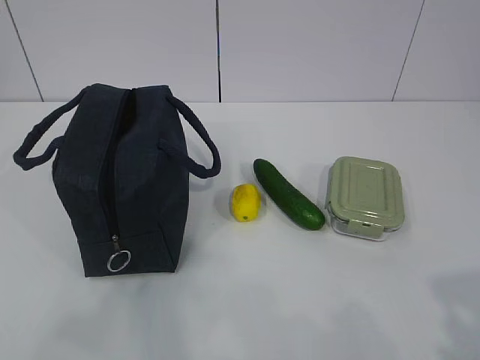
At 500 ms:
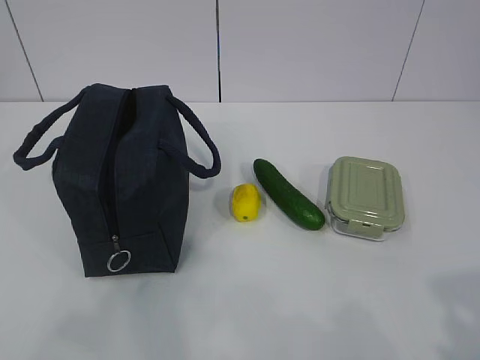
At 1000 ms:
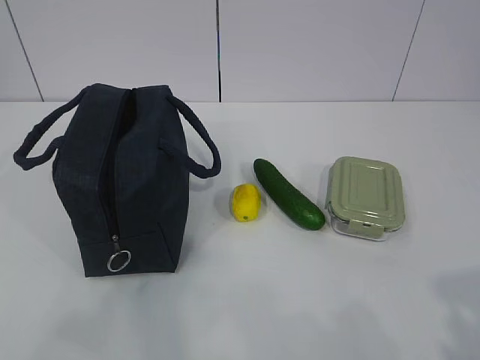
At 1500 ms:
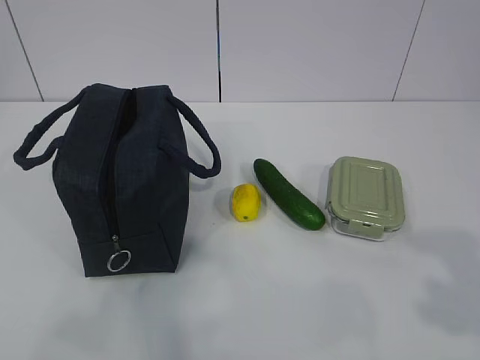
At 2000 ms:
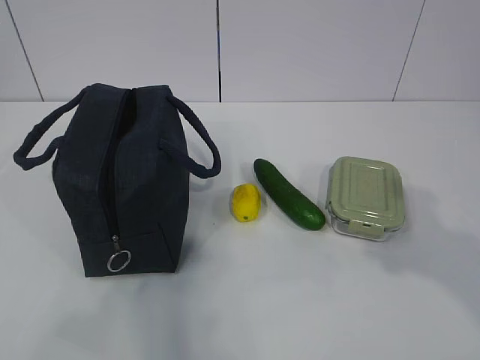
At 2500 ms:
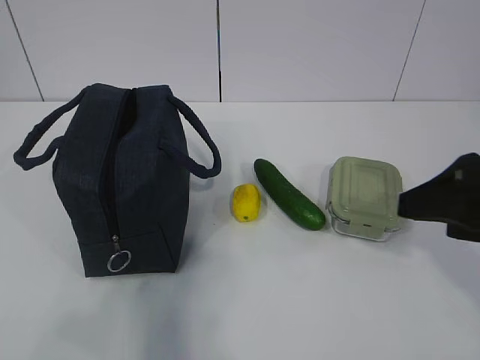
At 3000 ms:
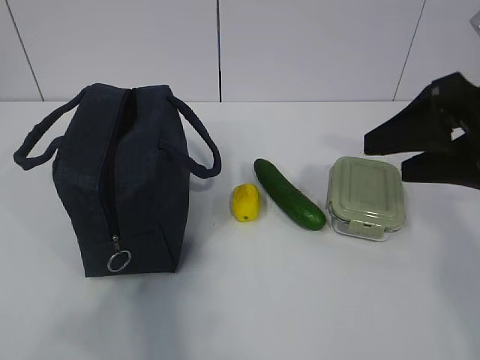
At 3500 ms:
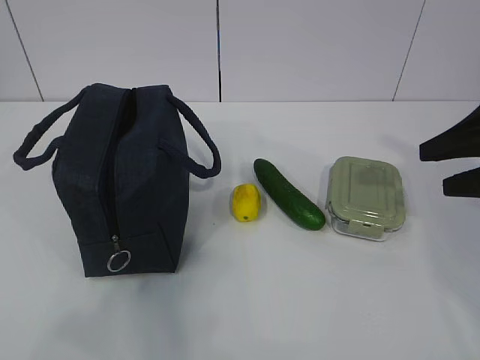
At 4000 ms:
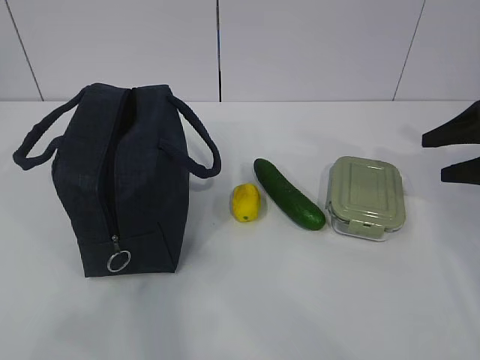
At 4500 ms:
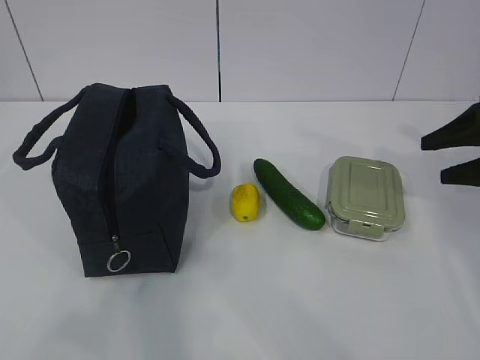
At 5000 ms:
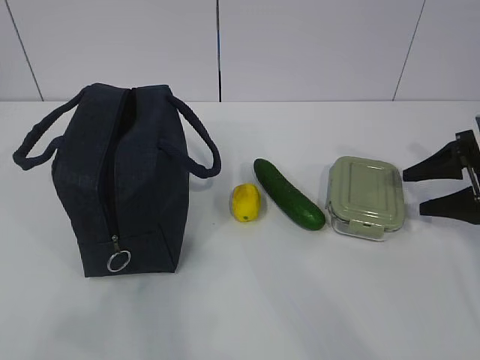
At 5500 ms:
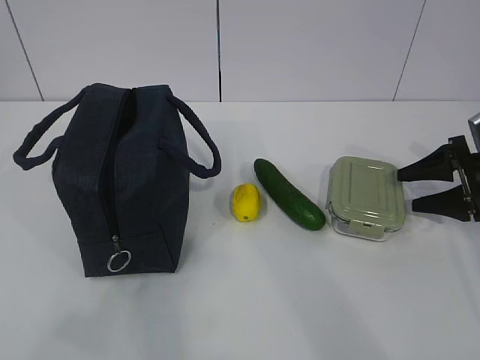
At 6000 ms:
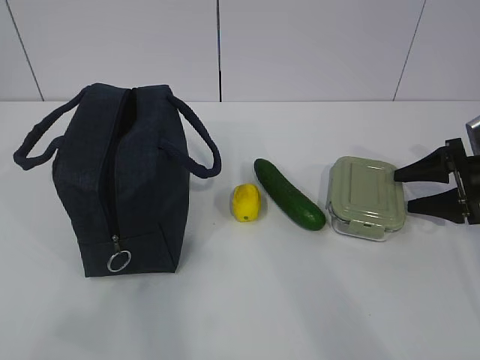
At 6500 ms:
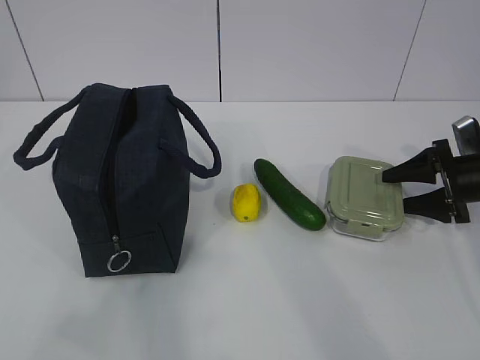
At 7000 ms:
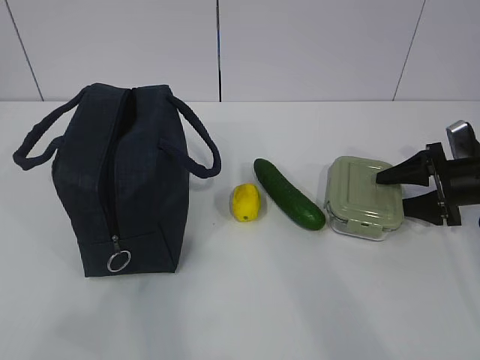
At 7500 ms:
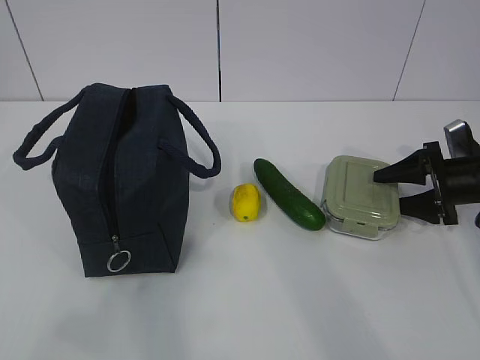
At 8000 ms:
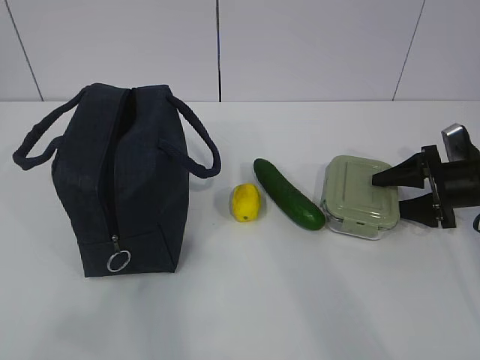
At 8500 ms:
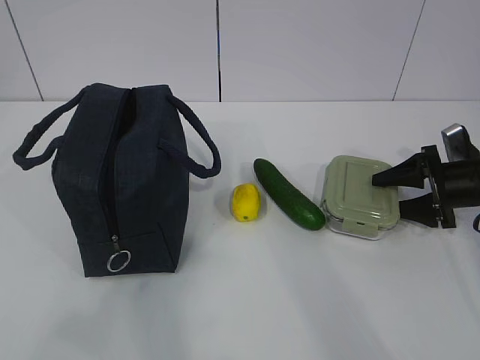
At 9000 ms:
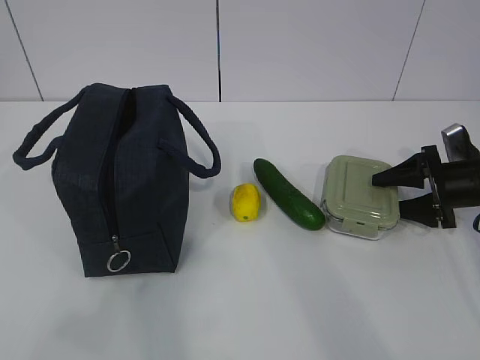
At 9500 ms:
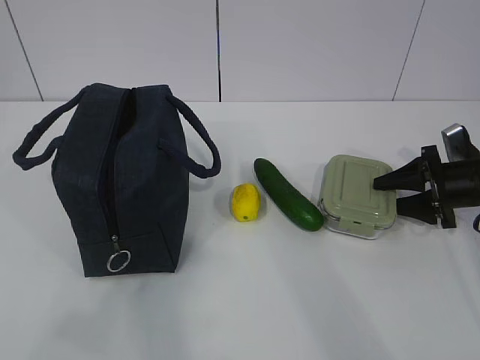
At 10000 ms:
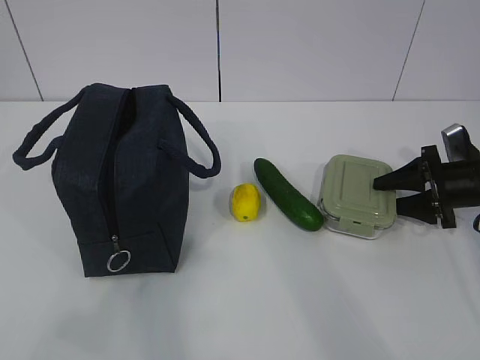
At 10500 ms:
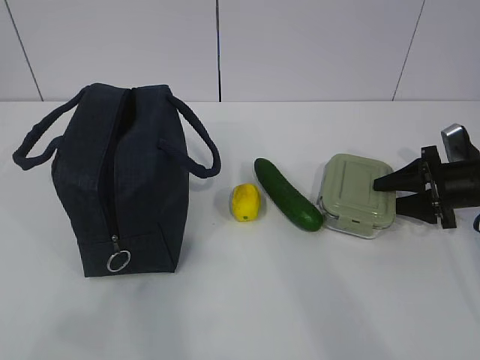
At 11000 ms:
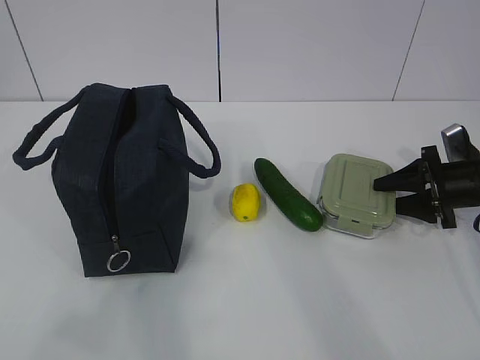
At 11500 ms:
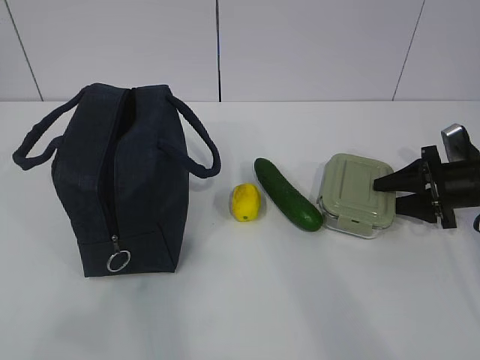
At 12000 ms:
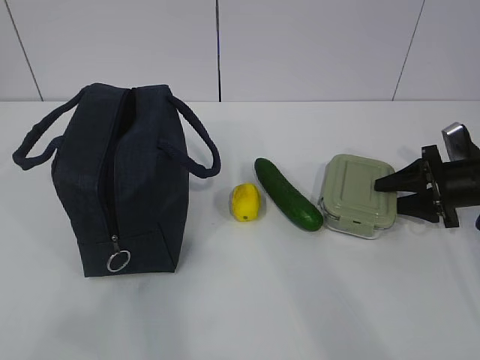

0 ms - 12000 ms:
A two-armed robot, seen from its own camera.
Step, 0 ms - 7500 ms: Grab the lunch box with your right hand.
2000 ms - 4000 ms: The right gripper shifts approximately 25 cm forward and to the right.
4000 ms - 6000 ms: The right gripper goes some 10 cm downward.
6000 ms - 8000 ms: The grippers stay close to where they were, moving slightly.
8000 ms - 12000 ms: The two grippers keep their place.

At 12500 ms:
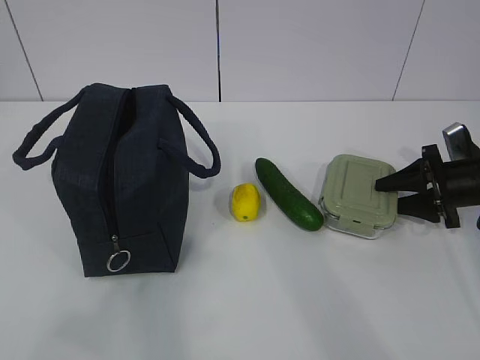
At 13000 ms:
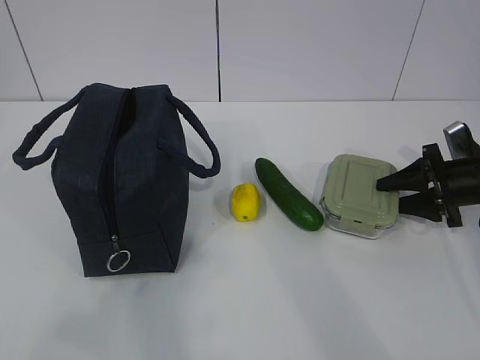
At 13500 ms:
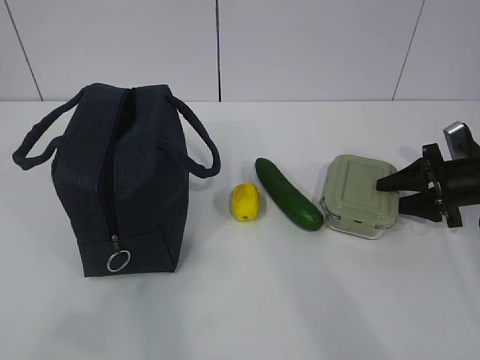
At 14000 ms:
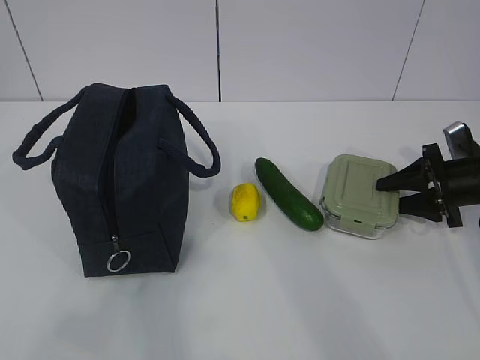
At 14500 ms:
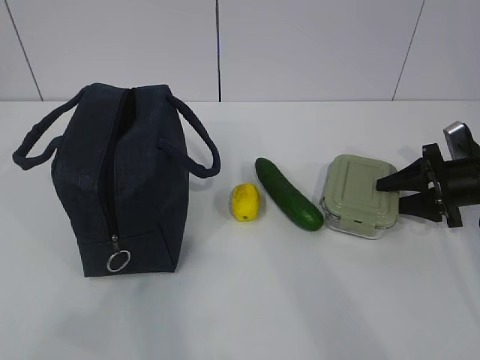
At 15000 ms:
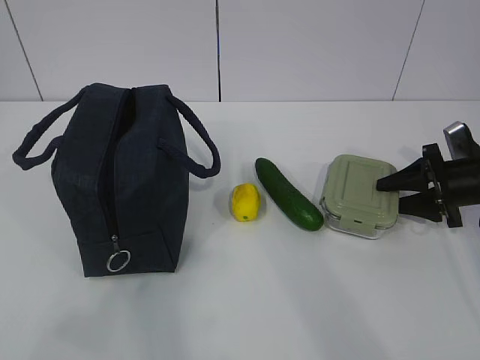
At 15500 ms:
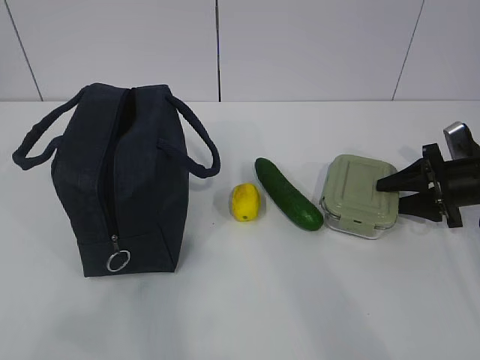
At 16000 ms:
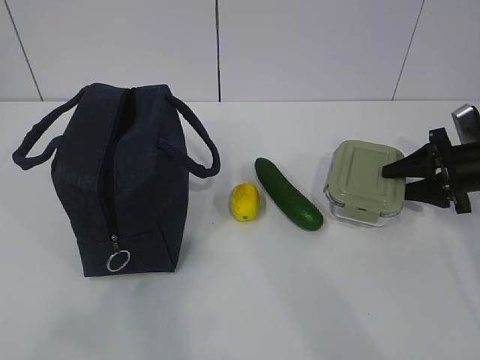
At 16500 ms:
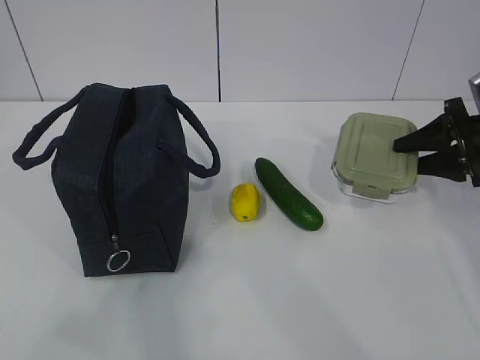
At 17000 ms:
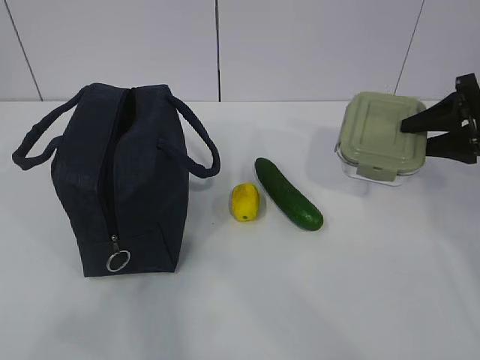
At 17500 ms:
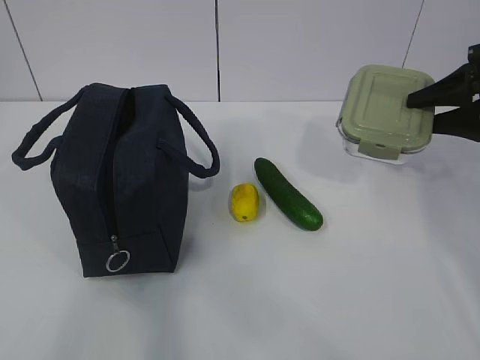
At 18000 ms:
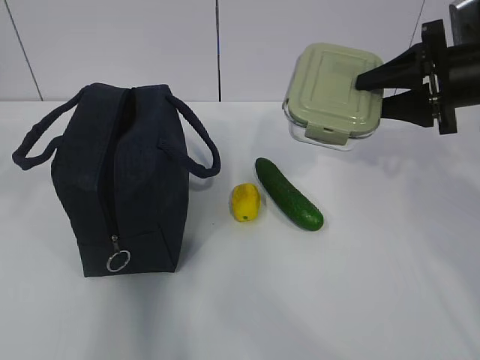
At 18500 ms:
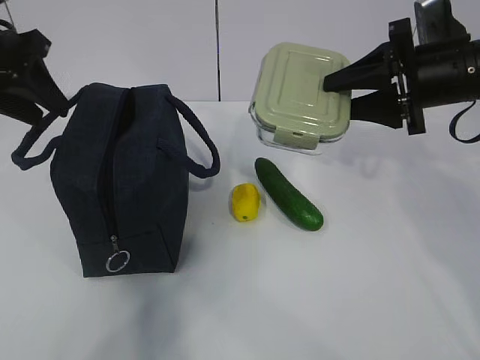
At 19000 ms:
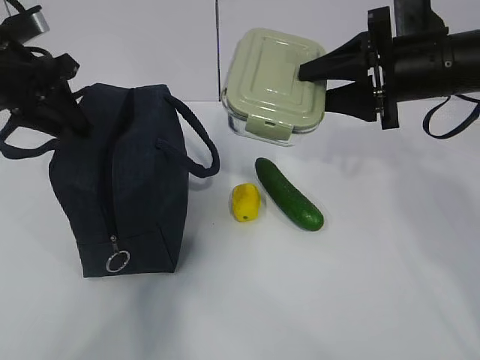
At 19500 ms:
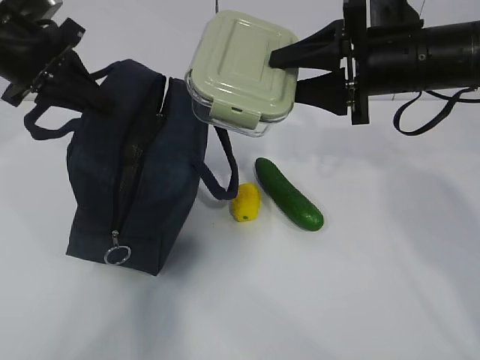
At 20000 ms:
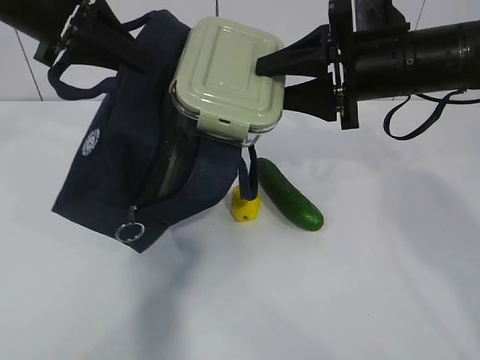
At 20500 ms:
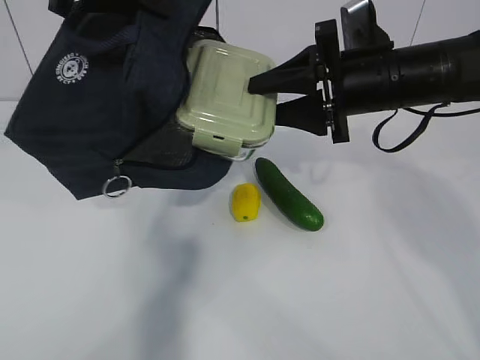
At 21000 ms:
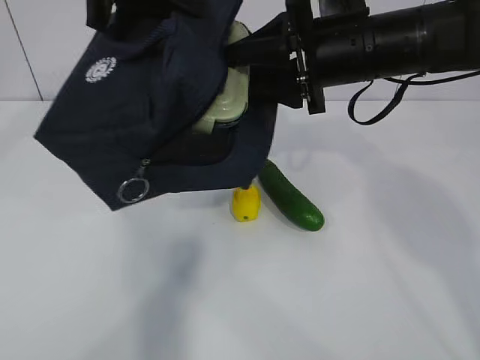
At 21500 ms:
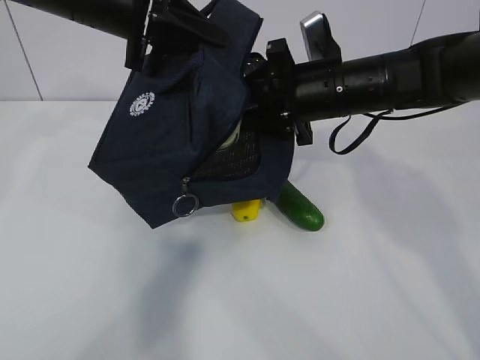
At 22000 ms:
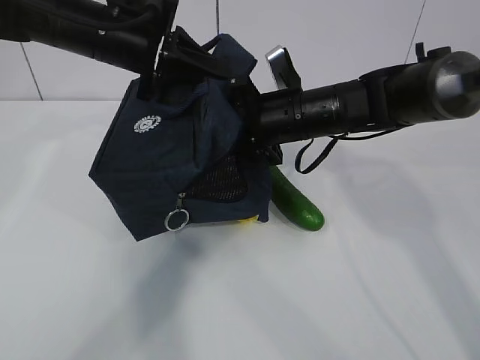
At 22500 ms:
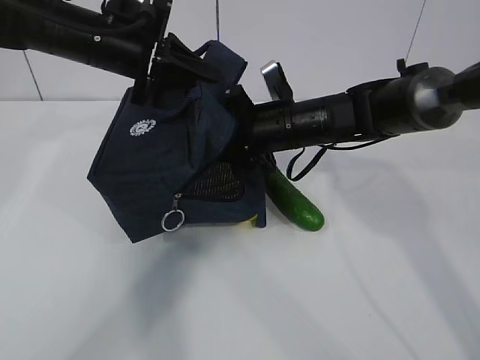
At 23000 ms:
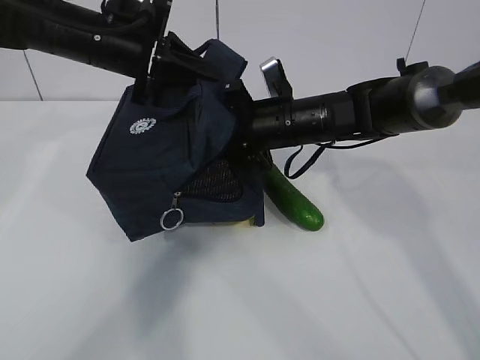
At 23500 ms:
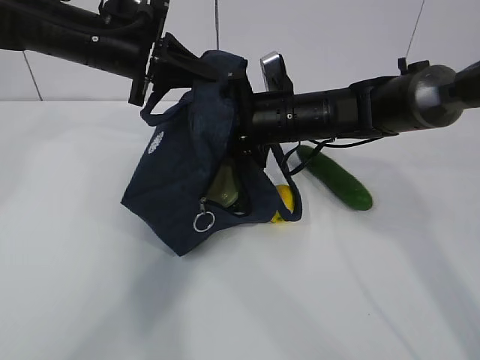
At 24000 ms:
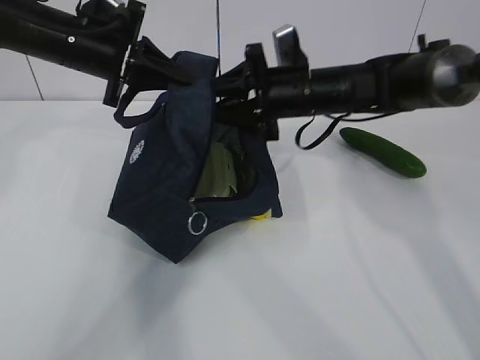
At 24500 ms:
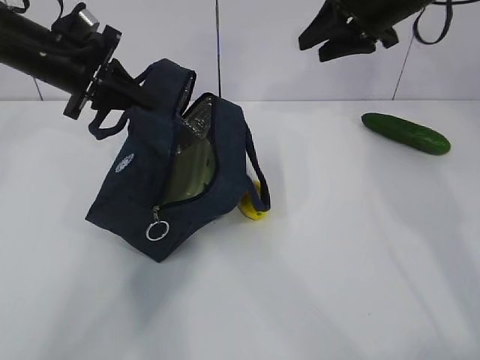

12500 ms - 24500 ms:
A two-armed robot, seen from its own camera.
Step, 17000 ms - 19000 ms: Place it into the bag with your right hand.
Step, 19500 ms - 23500 ms: Grab the cucumber with your right hand.
12500 ms - 14500 ms: Both grippers stay about where they are.
14500 ms - 16500 ms: The right gripper shifts approximately 10 cm upward.
16500 ms - 18500 ms: The right gripper is displaced to the left and upward by roughly 15 cm. Meanwhile the left gripper travels forward by approximately 35 cm.
18500 ms - 20500 ms: The right gripper goes roughly 10 cm to the left, while the left gripper travels to the right and upward by about 10 cm, and closes.
20500 ms - 22500 ms: The left gripper moves downward and forward, approximately 15 cm; the right gripper travels downward, to the left and forward by approximately 15 cm.
22500 ms - 24500 ms: The right gripper goes approximately 20 cm upward and to the right; the left gripper is displaced to the left by some 5 cm.

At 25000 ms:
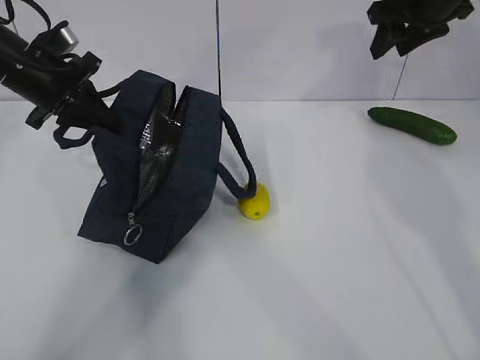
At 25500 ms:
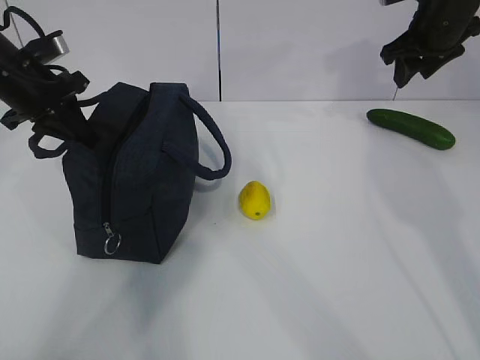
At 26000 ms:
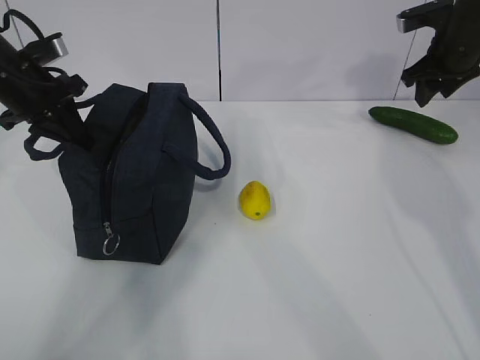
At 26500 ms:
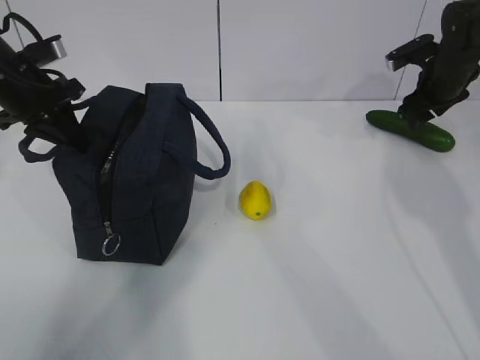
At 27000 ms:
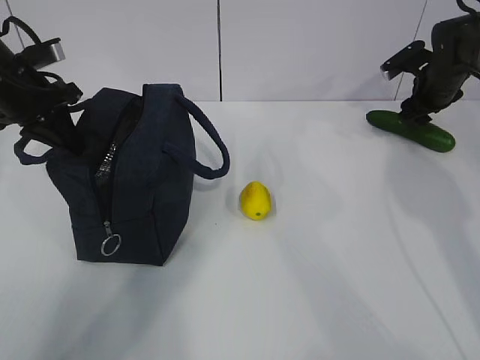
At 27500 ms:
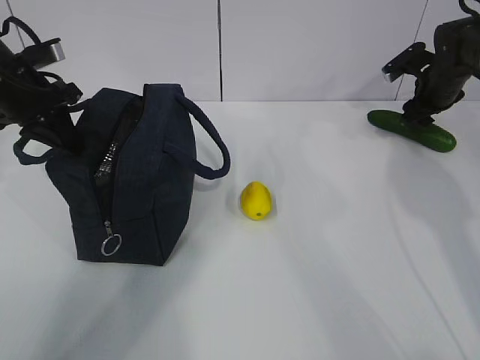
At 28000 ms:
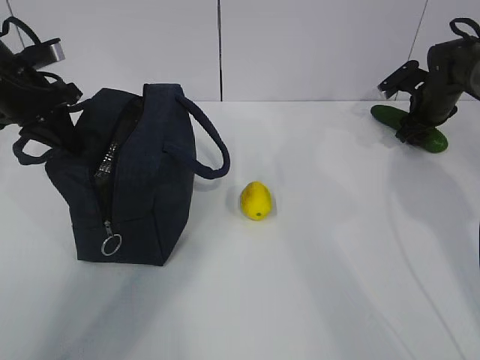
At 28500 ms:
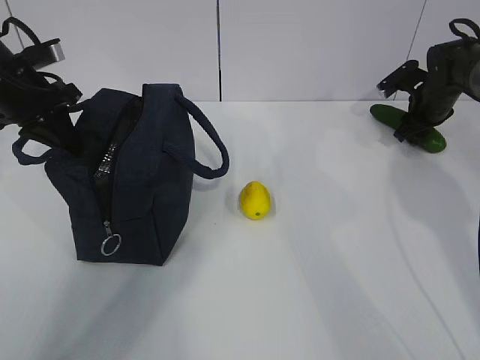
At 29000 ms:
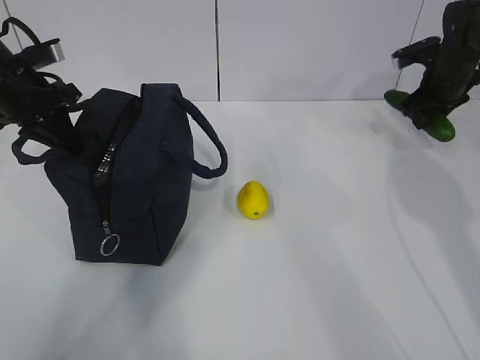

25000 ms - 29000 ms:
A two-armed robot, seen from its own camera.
Step, 25000 ms - 27000 ms: Place it into the bag with your right hand.
25000 ms - 27000 ms: The right gripper goes about 20 cm downward, to the right and forward.
27000 ms - 29000 ms: There are only small adjustments of the grippers.
